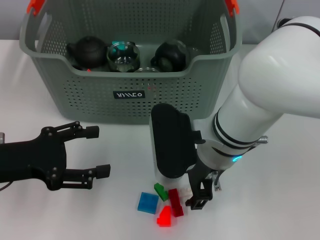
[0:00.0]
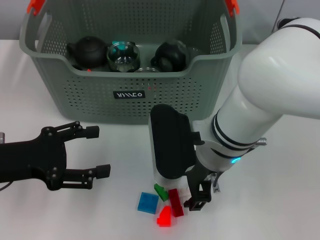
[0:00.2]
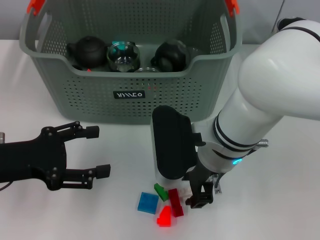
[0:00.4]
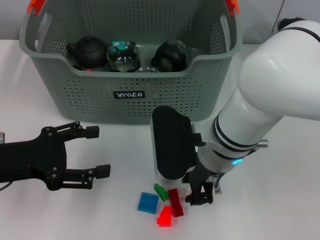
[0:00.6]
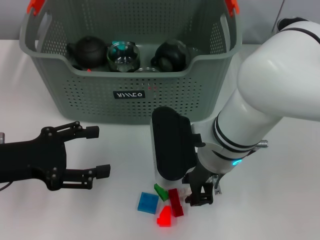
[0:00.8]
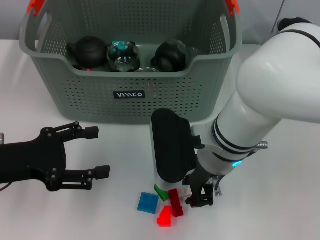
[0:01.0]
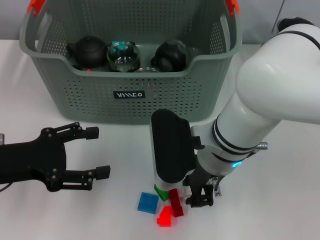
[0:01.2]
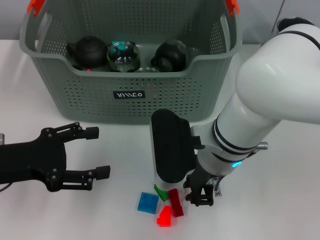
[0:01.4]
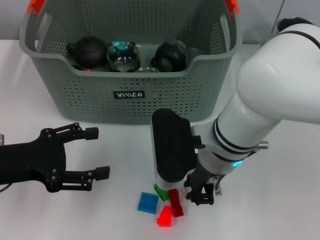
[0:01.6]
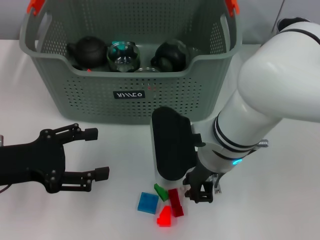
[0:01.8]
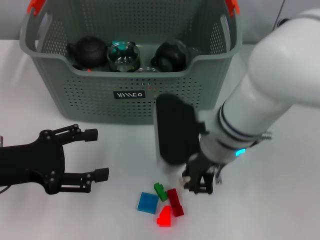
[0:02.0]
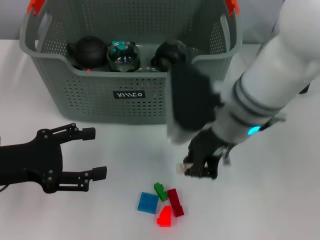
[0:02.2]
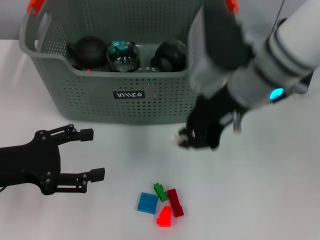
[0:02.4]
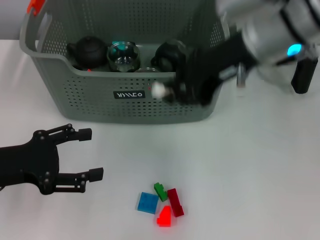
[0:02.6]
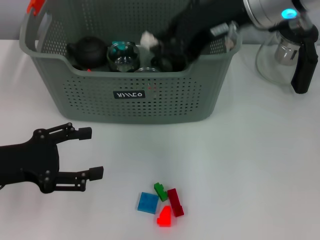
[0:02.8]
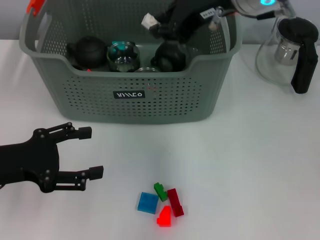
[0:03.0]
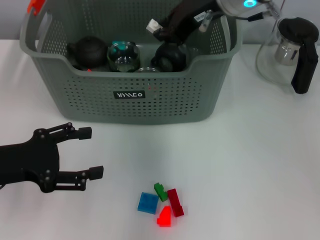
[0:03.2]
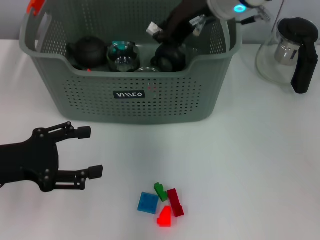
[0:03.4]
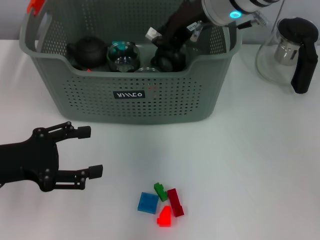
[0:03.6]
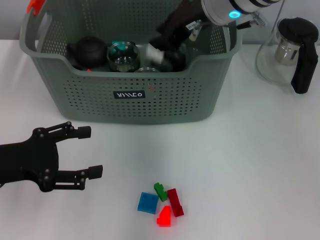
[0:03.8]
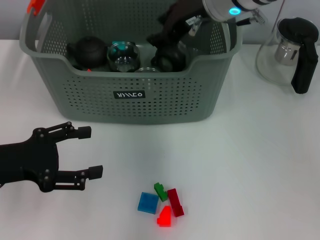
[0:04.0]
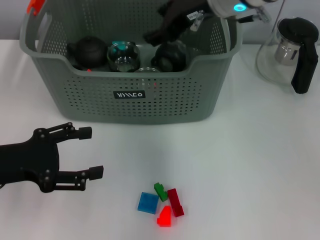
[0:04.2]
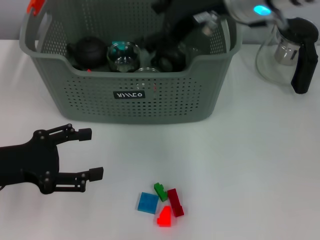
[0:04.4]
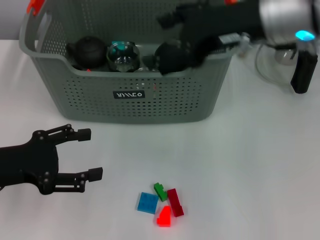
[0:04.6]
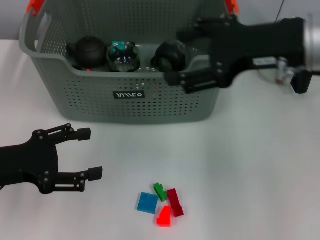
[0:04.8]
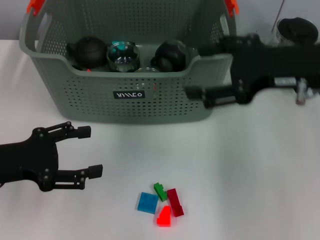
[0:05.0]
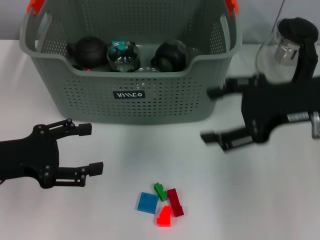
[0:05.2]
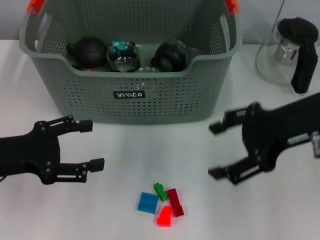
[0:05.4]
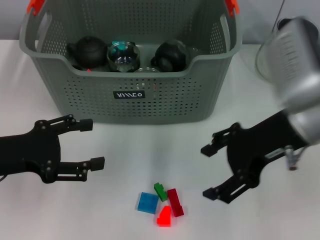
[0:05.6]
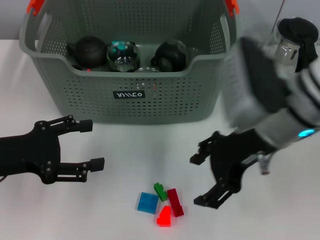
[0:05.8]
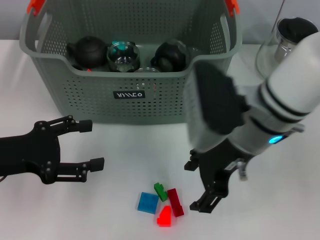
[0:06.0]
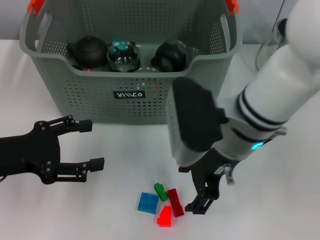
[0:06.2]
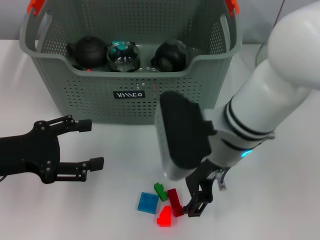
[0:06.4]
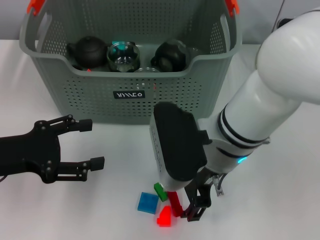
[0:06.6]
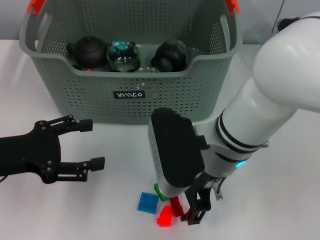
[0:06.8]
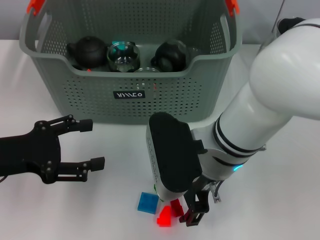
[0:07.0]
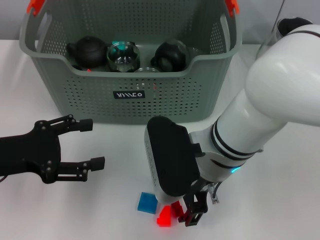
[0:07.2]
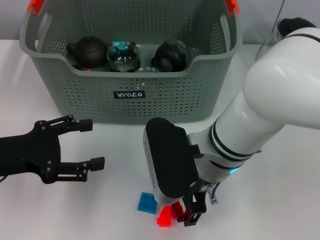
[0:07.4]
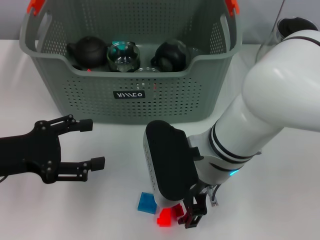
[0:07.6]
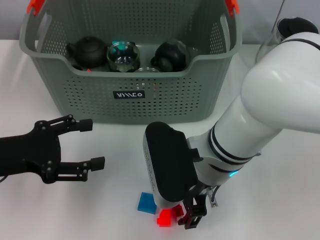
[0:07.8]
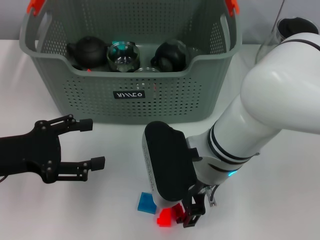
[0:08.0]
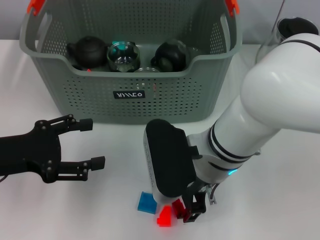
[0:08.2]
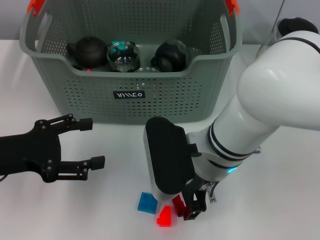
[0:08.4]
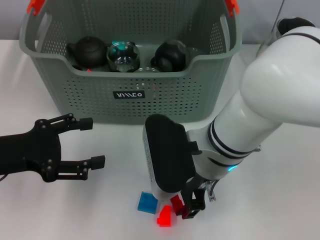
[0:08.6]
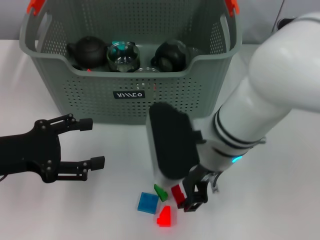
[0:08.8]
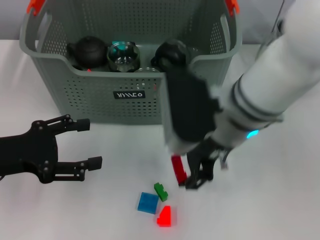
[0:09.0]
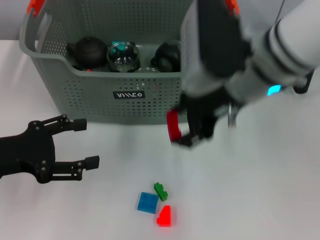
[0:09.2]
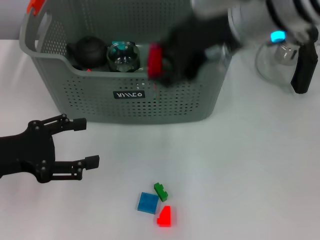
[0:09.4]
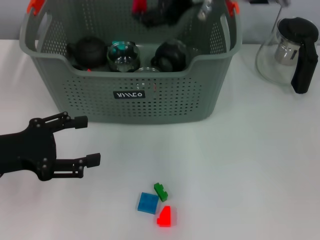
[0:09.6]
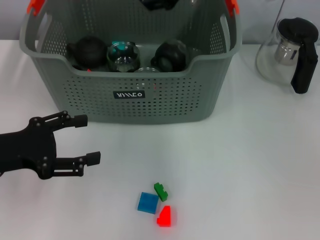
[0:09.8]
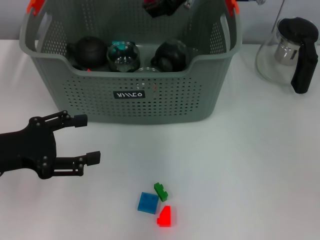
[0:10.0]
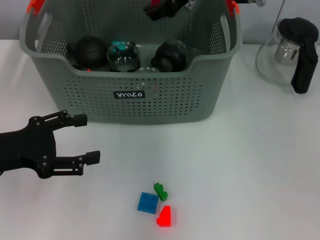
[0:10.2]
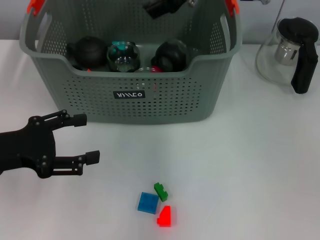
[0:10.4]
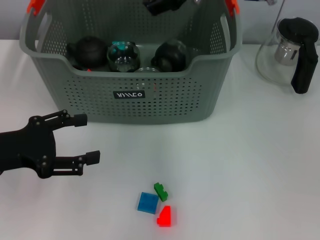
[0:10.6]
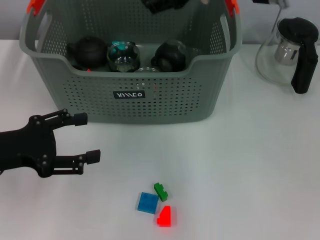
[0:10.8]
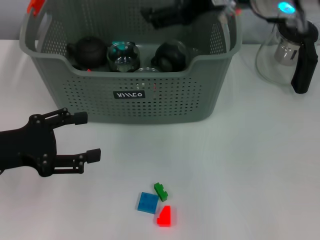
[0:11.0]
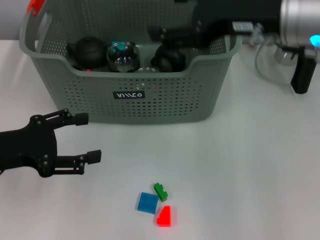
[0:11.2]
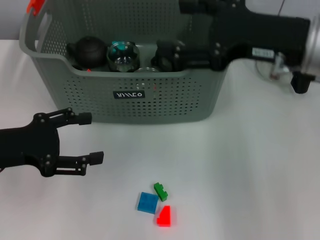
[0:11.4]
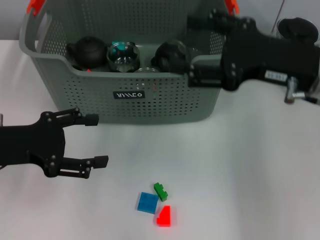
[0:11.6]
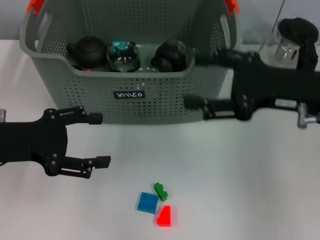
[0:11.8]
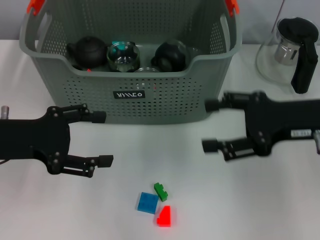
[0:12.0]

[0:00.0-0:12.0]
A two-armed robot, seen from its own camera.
Task of the whole recording: pick up the teacup on the table and place it into the storage bin, pick up the block on the table and place it into the storage bin.
Step, 0:01.6 to 0:03.8: Place the white block in the storage box with right gripper.
Step, 0:04.0 to 0:08.2: Grasp the red block with right gripper.
Step, 0:08.4 to 0:10.4: Place the red block in the storage box with right gripper.
0:00.0 to 0:01.6: The right gripper closes up.
0:01.6 to 0:03.0: The right gripper moves upward and forward, roughly 20 cm.
0:03.0 to 0:04.4: The right gripper opens.
0:04.4 to 0:06.0: The right gripper heads downward and backward, covering some 10 cm, and reaches some 10 cm to the right, then returns.
0:06.0 to 0:07.6: The right gripper shifts by roughly 5 cm.
0:07.6 to 0:09.0: The right gripper ends up some 5 cm from where it was.
0:09.0 to 0:10.4: The right gripper goes some 15 cm forward and upward.
0:10.4 to 0:12.0: The right gripper goes approximately 25 cm to the right, backward and downward.

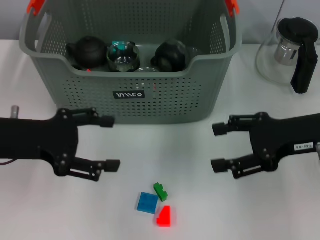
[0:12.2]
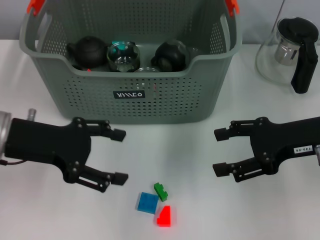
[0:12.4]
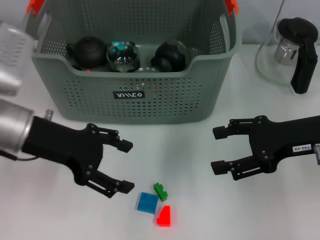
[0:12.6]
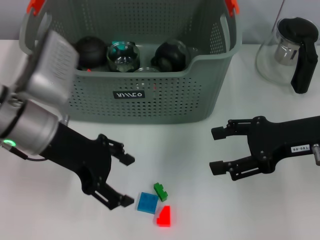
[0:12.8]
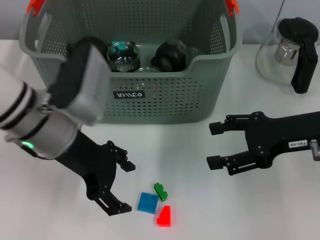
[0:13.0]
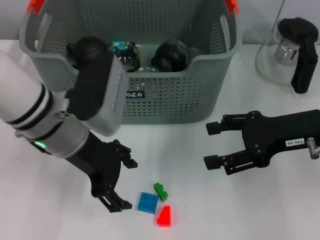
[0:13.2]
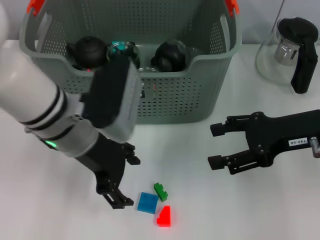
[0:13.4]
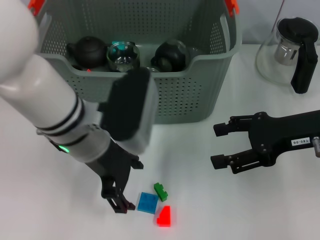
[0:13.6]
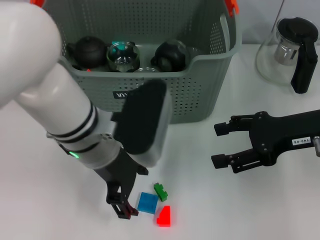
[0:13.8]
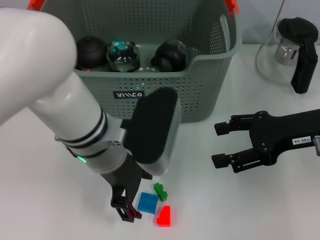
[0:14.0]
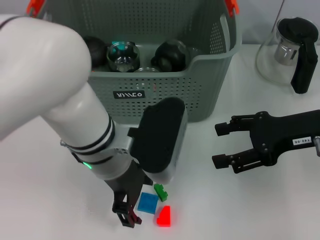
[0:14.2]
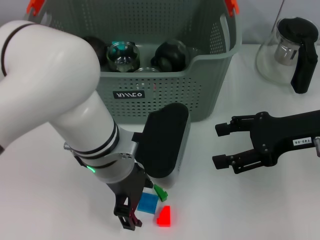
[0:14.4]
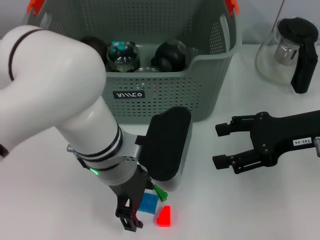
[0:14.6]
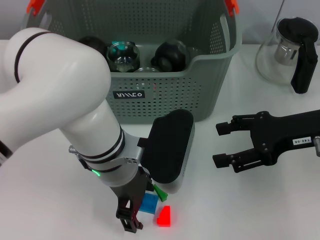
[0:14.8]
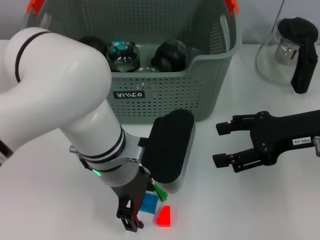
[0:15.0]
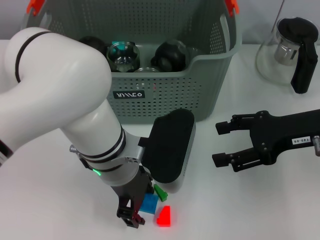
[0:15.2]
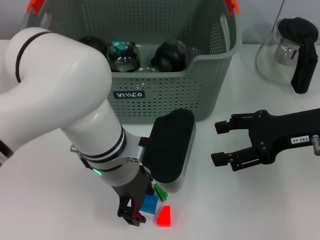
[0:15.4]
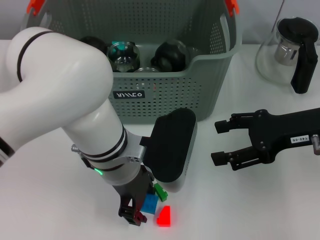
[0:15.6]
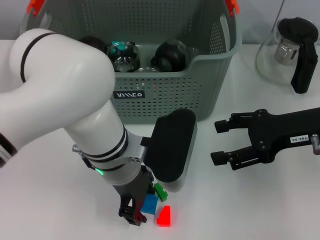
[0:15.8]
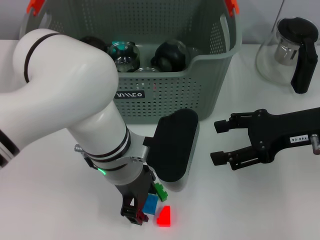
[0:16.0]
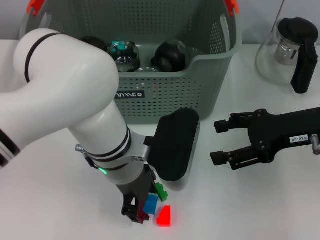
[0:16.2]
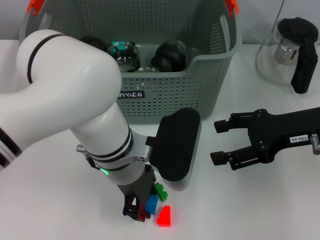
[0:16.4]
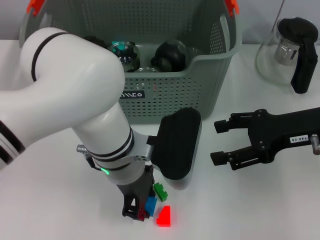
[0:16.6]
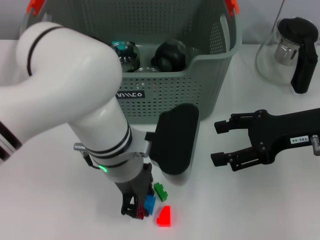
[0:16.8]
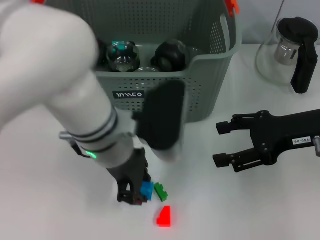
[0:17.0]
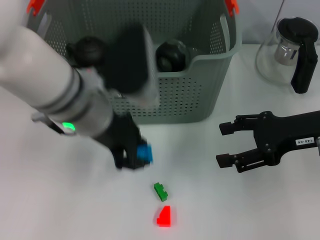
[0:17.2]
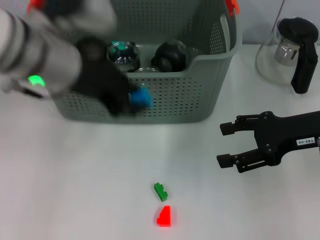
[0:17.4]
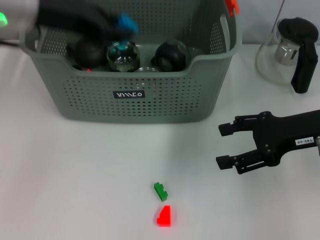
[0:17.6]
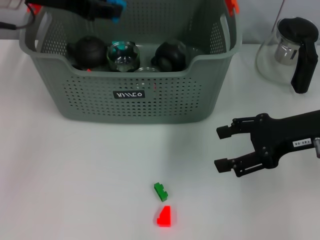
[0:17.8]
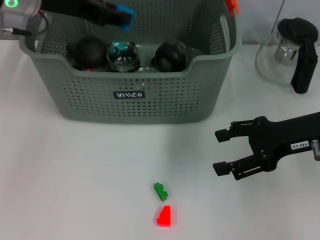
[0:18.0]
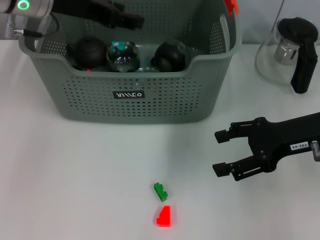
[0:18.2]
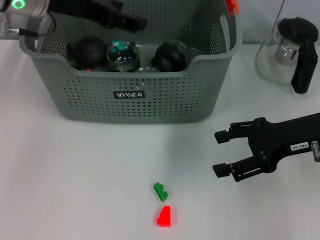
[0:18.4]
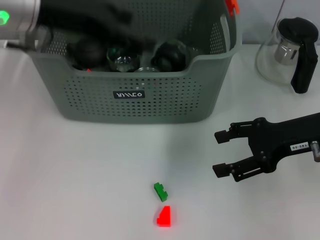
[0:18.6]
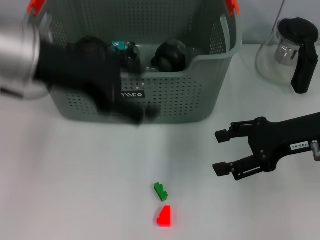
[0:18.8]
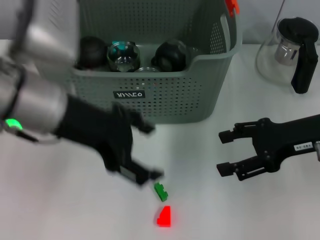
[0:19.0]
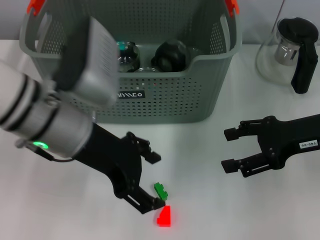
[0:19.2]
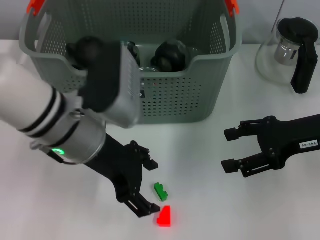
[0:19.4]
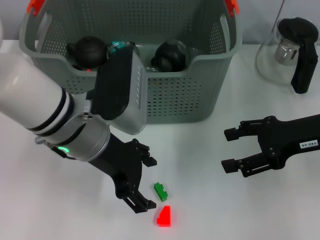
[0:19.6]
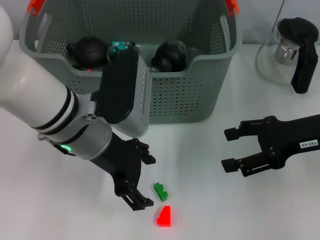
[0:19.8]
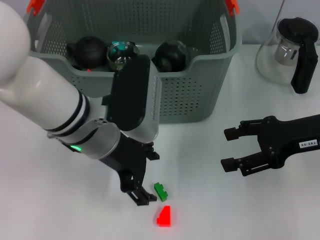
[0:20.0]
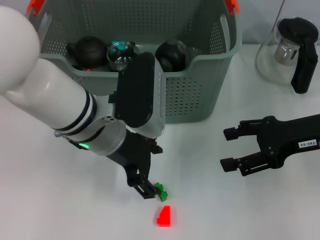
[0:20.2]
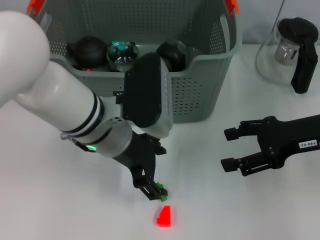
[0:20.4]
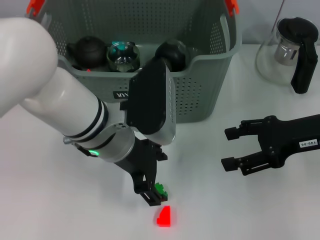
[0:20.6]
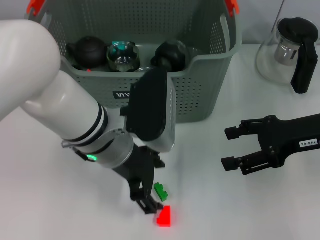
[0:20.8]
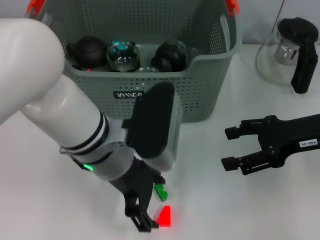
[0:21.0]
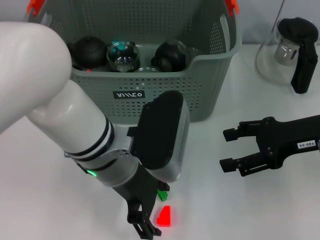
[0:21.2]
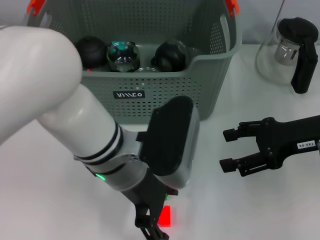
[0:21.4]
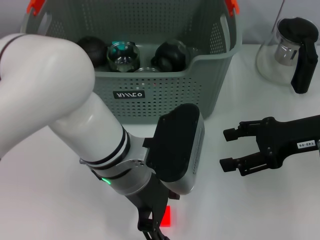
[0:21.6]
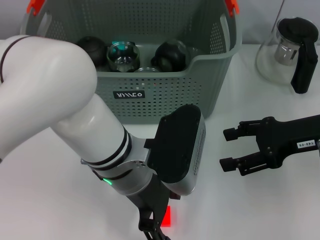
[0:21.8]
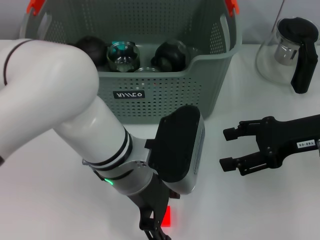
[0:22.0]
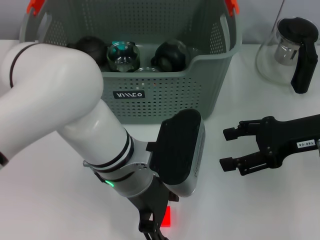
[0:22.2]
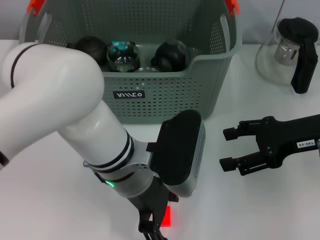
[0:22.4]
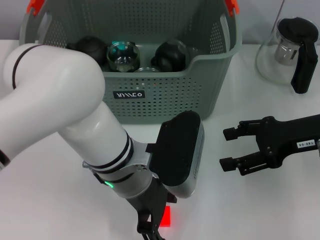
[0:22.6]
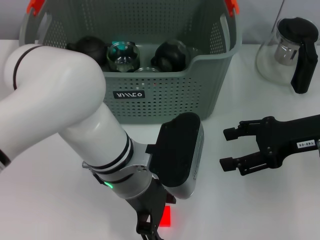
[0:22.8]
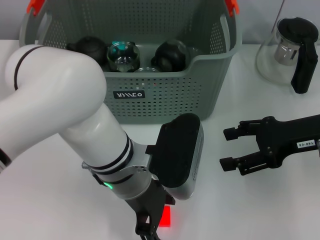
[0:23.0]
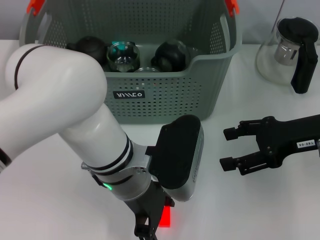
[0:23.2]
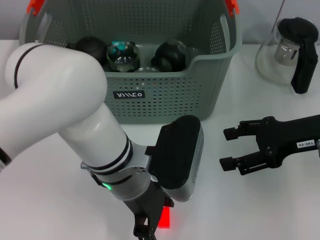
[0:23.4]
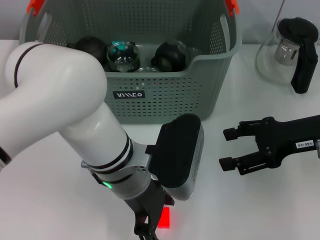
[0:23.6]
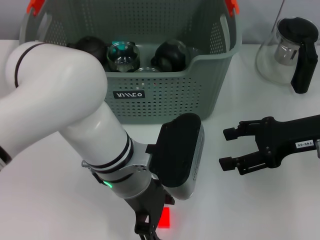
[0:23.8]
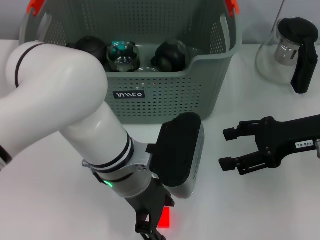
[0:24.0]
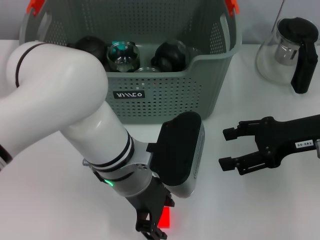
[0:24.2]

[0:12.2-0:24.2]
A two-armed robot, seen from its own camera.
Task of the whole recording: pick up the teacup on the table and place it into the storage bin, pick up the block on the table and place it into the storage bin.
Step, 0:12.2 to 0:16.6: Grasp the dark blue block with left gripper.
Step, 0:16.8 to 0:18.2: Place the dark blue block in the storage box with left gripper.
0:12.2 to 0:13.8: The left gripper moves to the right, approximately 15 cm.
0:15.2 to 0:16.6: The left gripper closes its fingers.
0:16.6 to 0:18.2: The left gripper shifts roughly 20 cm to the left, upward and forward.
0:18.2 to 0:19.8: The left gripper goes approximately 15 cm backward, downward and to the right, and opens.
0:22.6 to 0:24.2: The two grippers keep their place.
